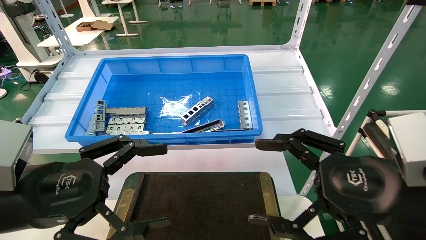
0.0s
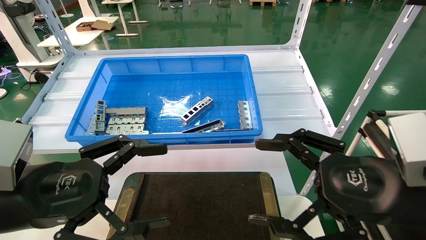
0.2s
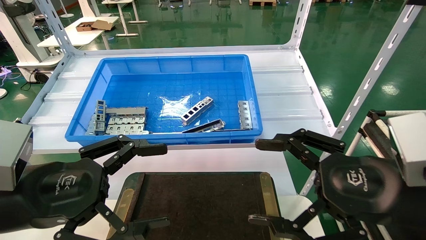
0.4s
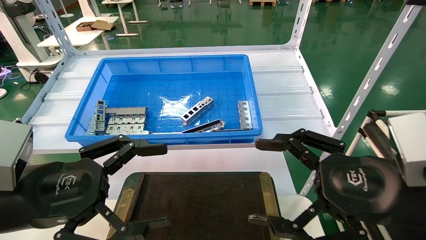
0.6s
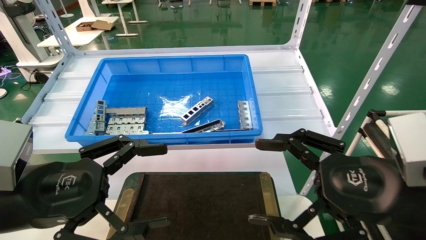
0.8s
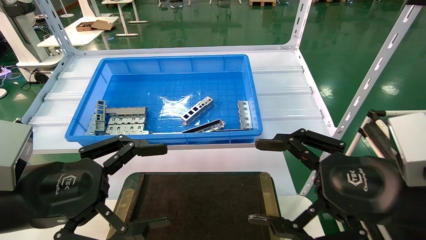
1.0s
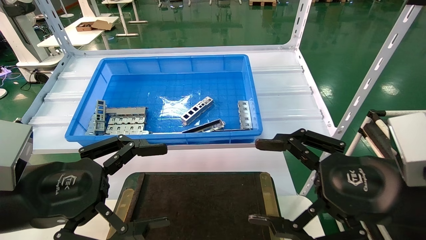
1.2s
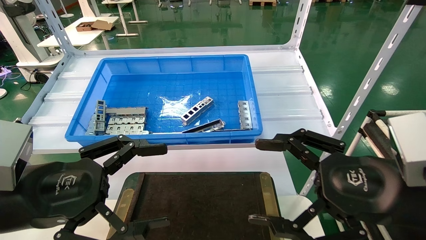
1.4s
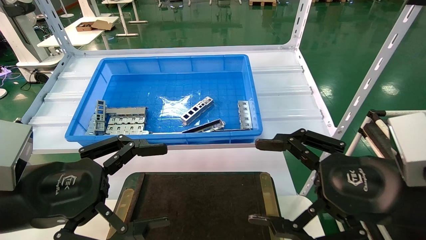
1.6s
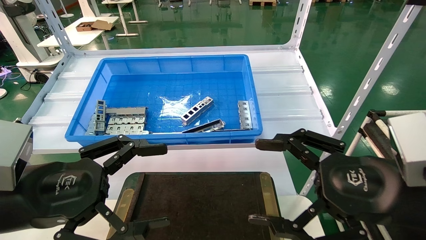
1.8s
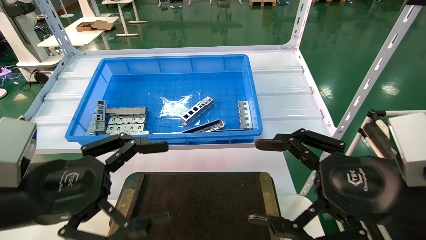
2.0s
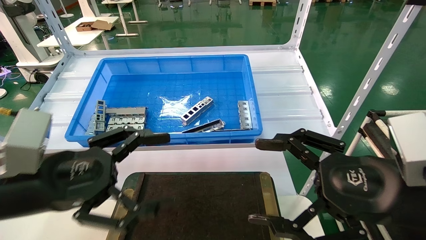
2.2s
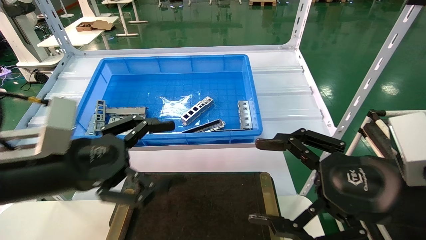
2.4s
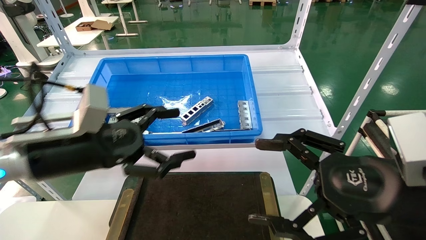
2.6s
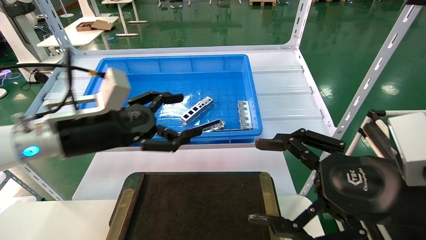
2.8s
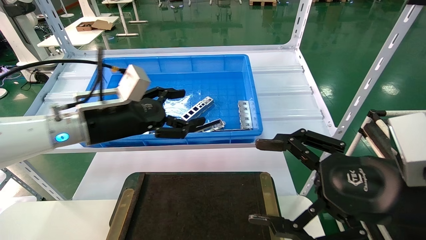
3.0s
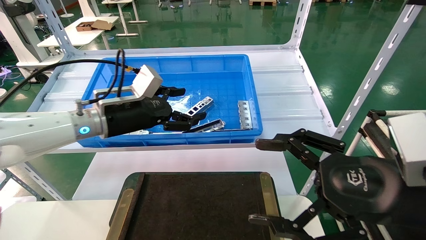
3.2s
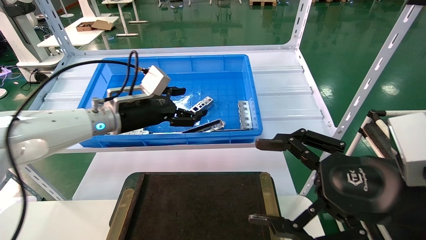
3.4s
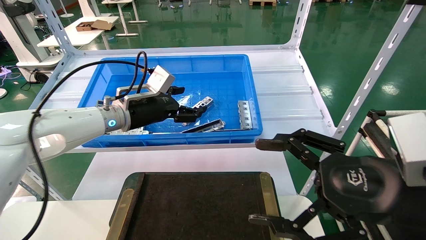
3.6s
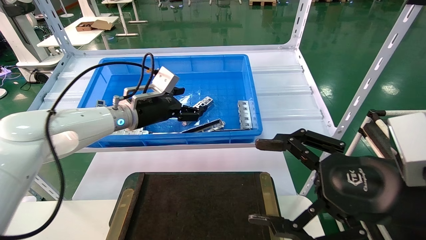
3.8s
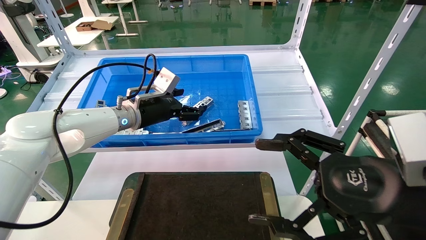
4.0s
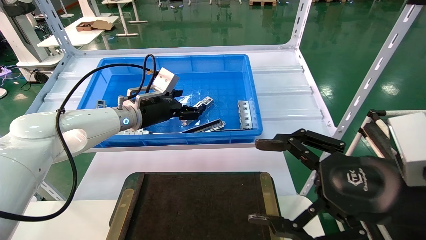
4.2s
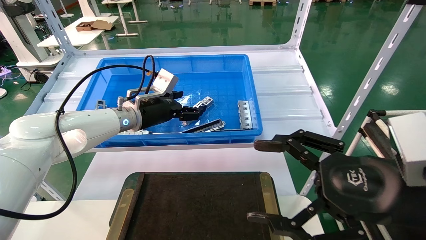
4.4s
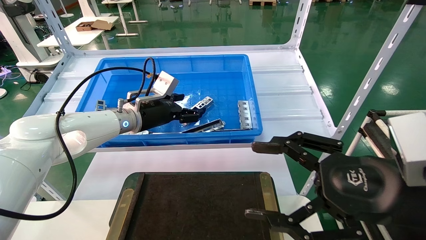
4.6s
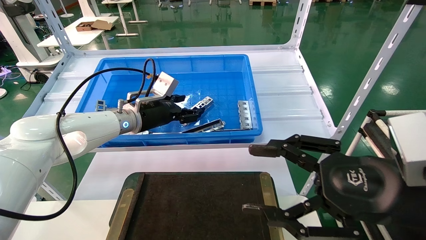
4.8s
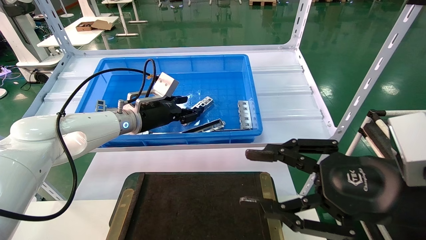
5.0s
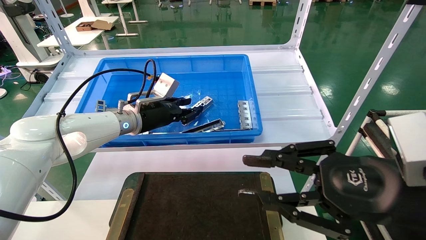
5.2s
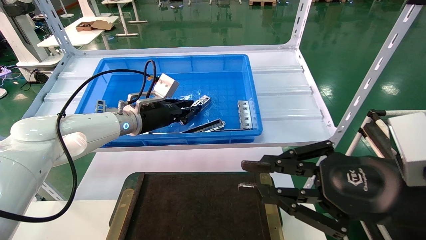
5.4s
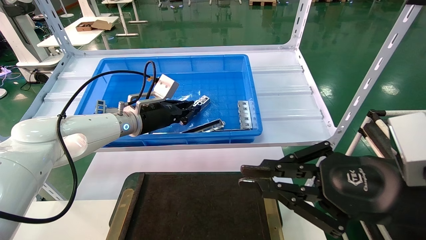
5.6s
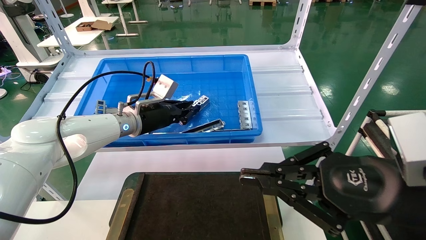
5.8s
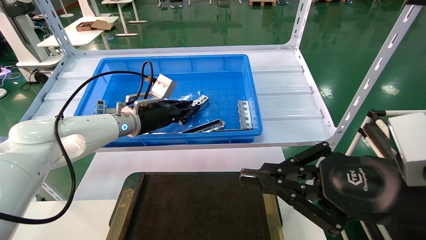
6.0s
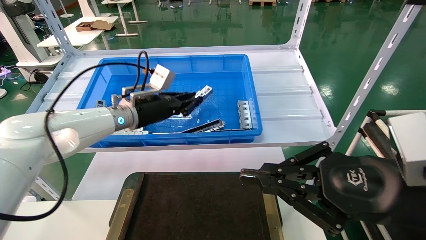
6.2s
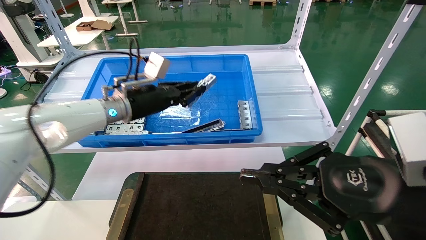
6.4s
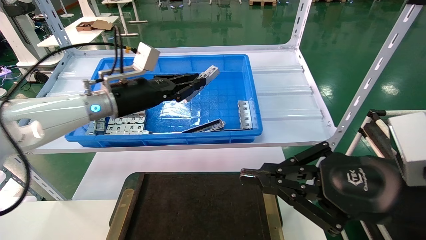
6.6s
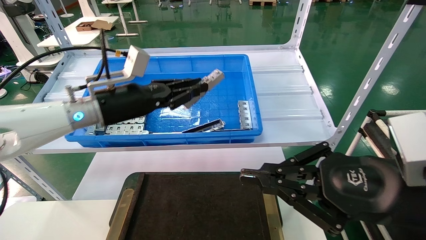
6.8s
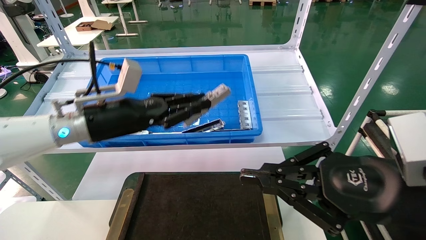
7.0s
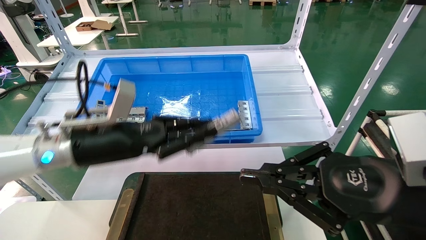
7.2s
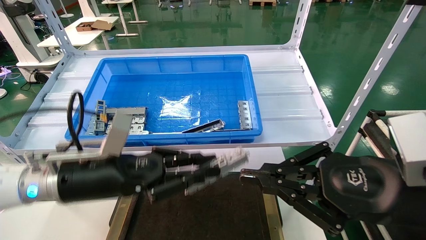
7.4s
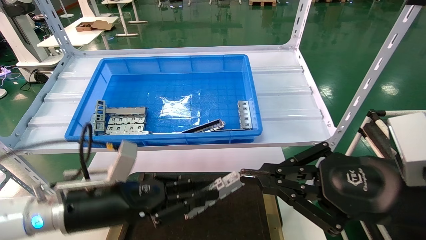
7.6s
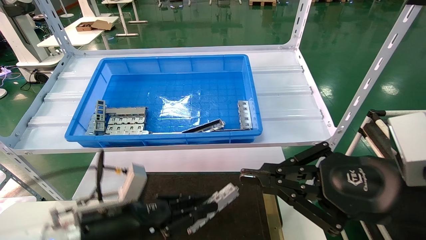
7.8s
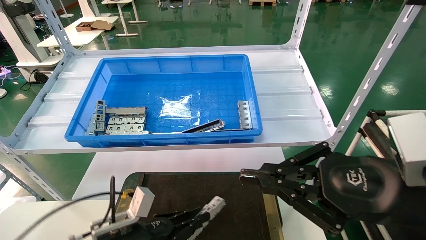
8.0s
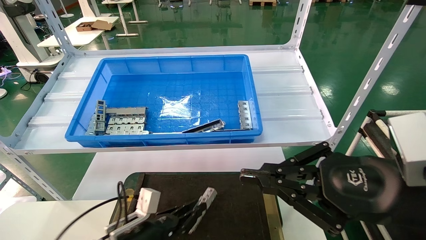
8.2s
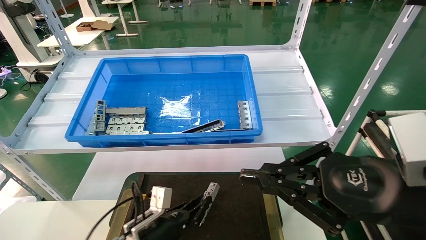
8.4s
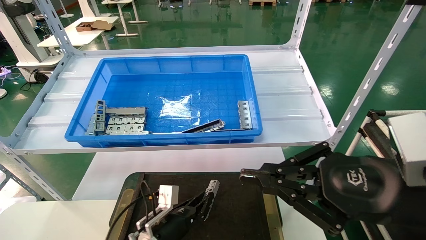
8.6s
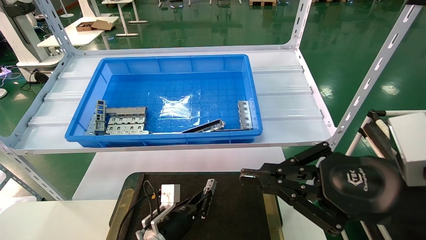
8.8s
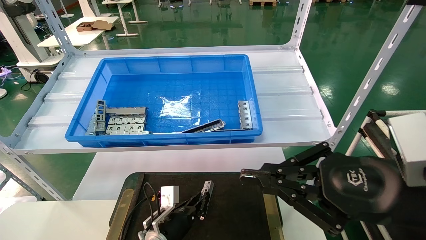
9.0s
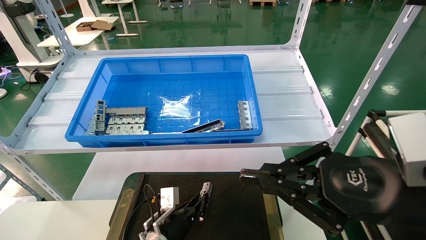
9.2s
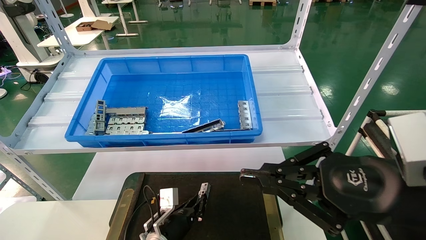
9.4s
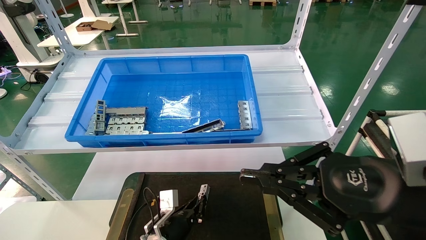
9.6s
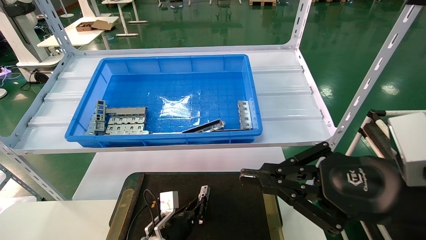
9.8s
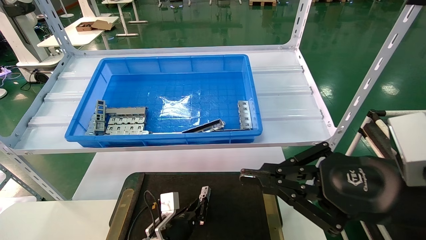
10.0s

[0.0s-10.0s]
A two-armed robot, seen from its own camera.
Task of the whole recording: Grasp the part with one hand and place it on the black container.
Step, 2.4s to 5.4s: Pick up the front USB bracket from the feeding area.
0.0s to 1.4s: Neither gripper changes place.
1.4s to 2.8s: The left gripper is displaced forward by roughly 15 cm.
2.8s to 4.2s: The left gripper moves forward, some 15 cm.
4.2s to 5.8s: The right gripper closes its fingers; the left gripper closes up.
5.8s to 7.2s: The left gripper goes some 15 cm backward.
7.2s to 8.6s: The left gripper moves downward, some 25 cm.
8.6s to 10.0s: The left gripper changes place by some 5 cm.

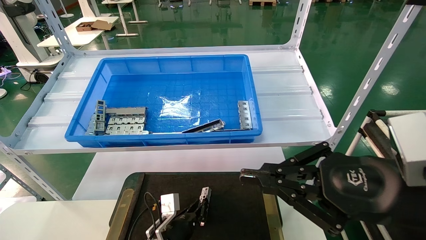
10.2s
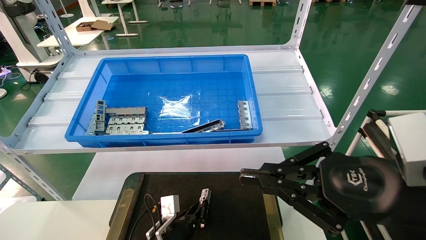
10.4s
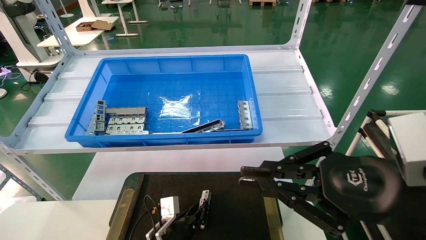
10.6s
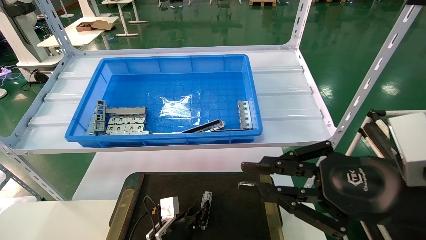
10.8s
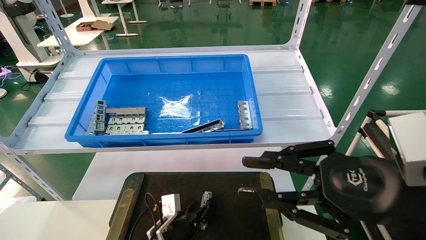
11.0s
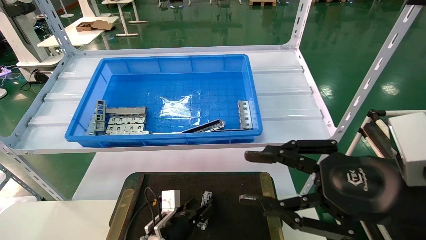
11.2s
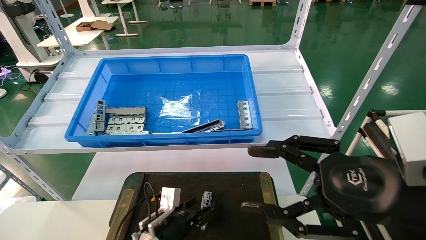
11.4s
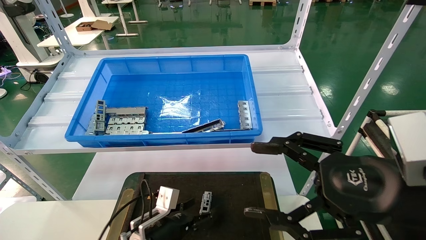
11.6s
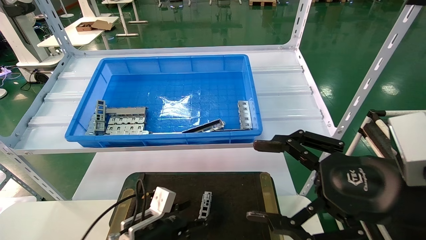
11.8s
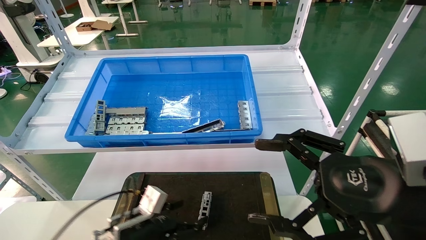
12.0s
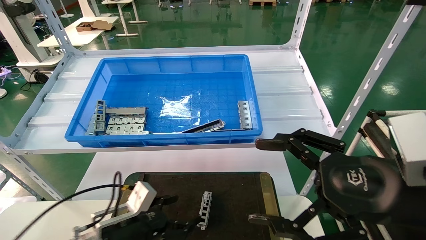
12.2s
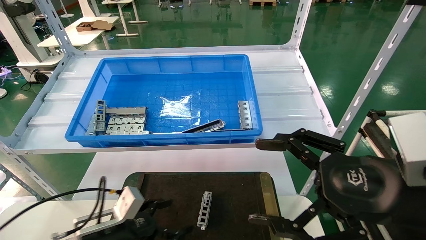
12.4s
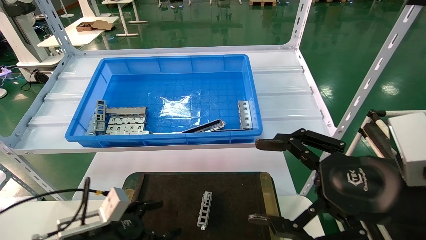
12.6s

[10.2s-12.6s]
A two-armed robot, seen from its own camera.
Task of the whole recording: Grasp the part with one hand and place it on the black container.
10.2s to 11.4s: The left gripper opens; the right gripper opens up.
11.4s to 12.6s: The left gripper is displaced to the left, upward and backward by some 15 cm, and opens, while the right gripper opens its fingers.

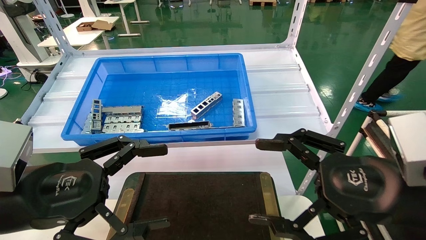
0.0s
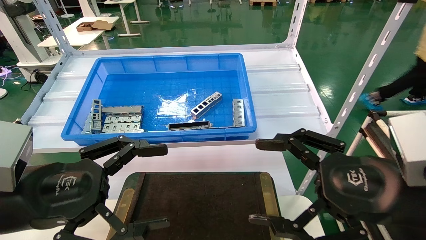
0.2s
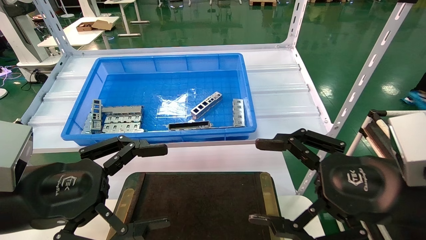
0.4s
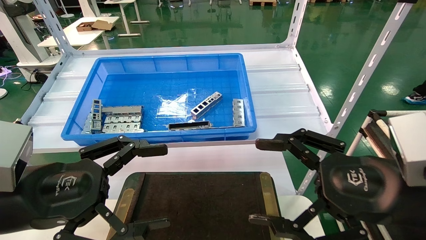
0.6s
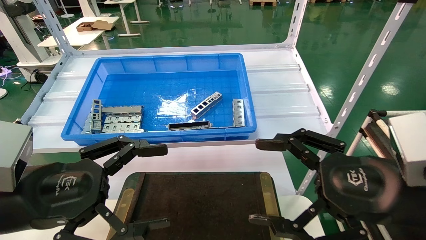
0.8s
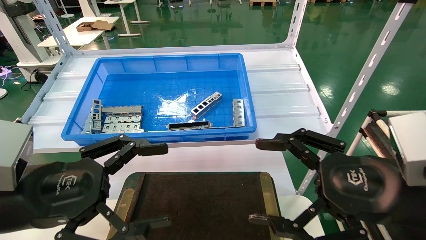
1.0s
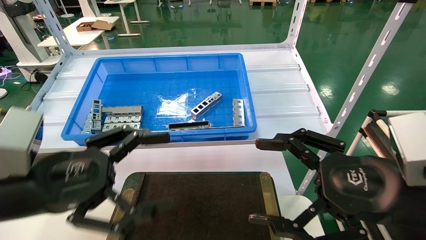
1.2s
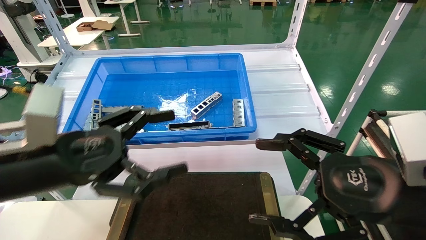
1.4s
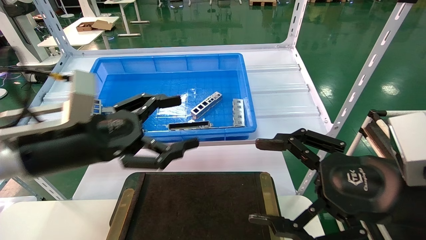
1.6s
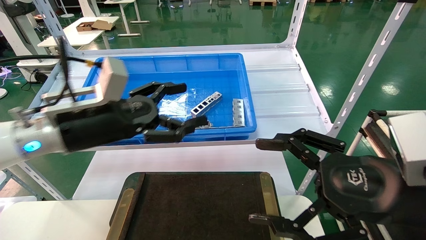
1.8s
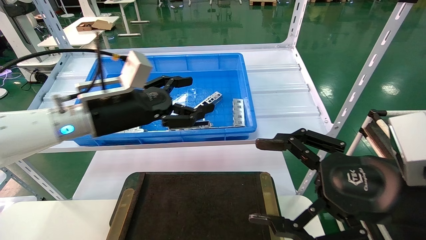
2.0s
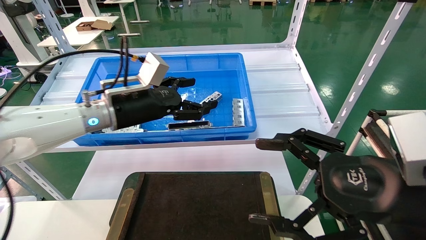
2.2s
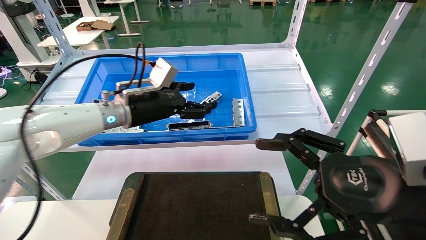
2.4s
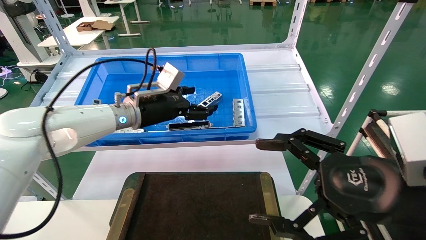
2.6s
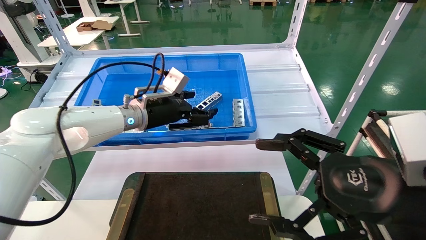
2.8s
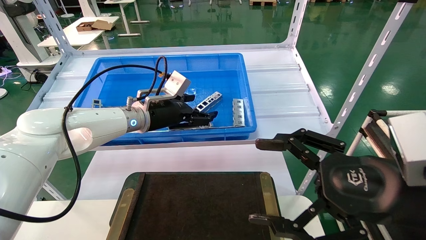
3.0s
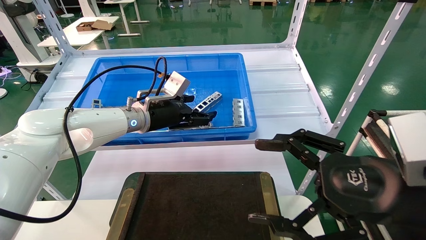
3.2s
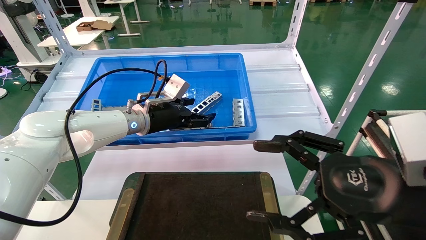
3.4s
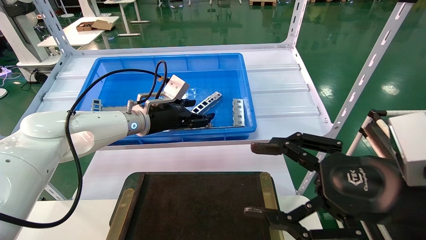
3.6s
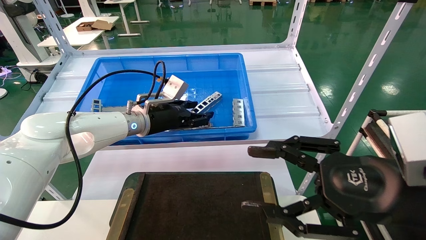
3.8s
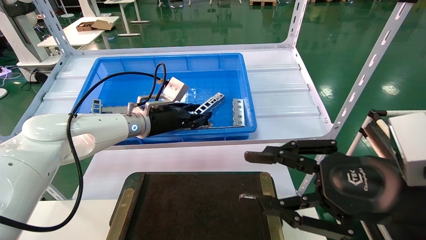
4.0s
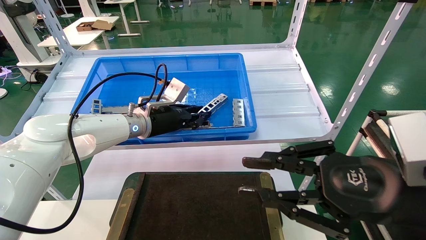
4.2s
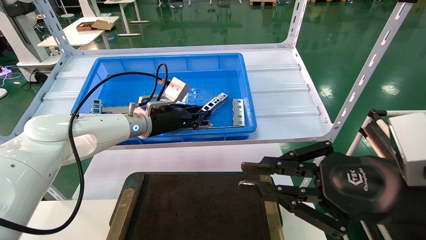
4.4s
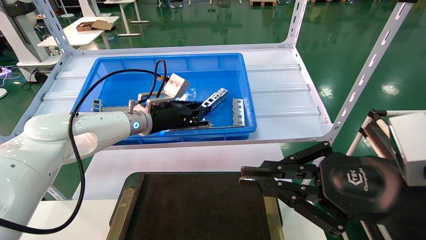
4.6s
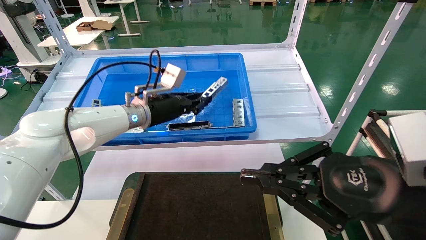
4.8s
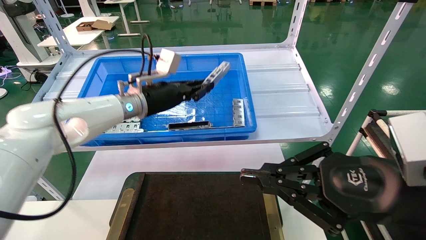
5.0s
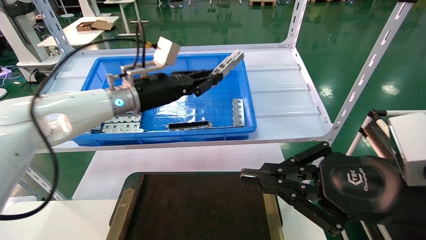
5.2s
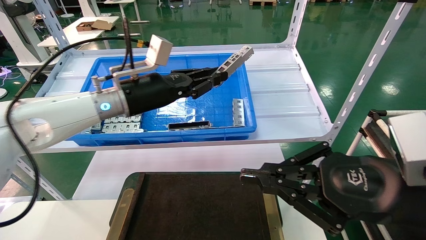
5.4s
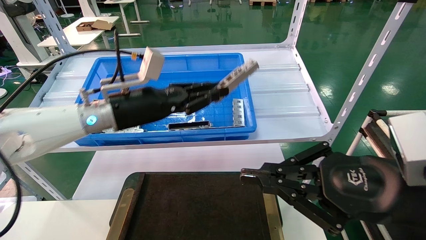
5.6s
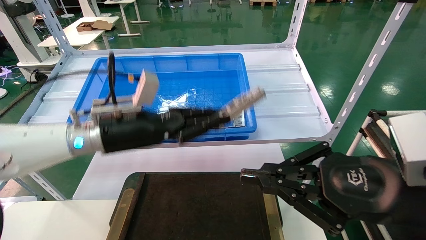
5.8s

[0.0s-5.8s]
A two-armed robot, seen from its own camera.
Task of the whole recording: Grasp the part with one hand and place it on the black container.
Step, 1.4s to 5.0s: Pick up the front USB bracket from the feeding area.
0.0s to 1.4s: The left gripper shifts by roughly 5 cm.
1.4s to 2.8s: The left gripper travels forward by approximately 25 cm.
2.8s to 4.4s: The right gripper closes its fingers. Meanwhile the left gripper closes its fingers.
4.4s to 5.8s: The left gripper travels backward by about 10 cm.
